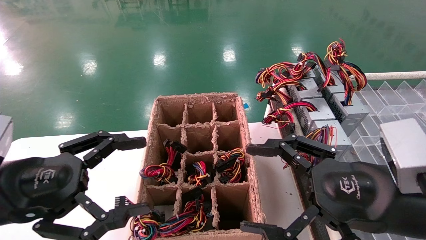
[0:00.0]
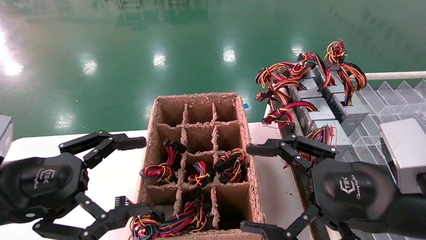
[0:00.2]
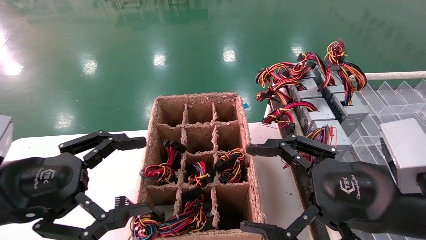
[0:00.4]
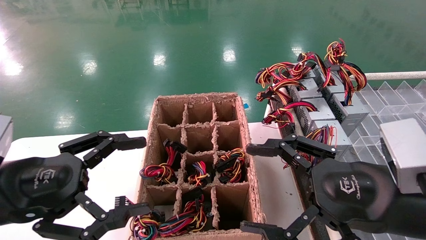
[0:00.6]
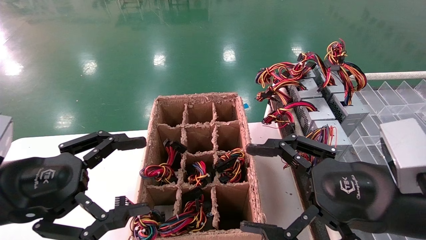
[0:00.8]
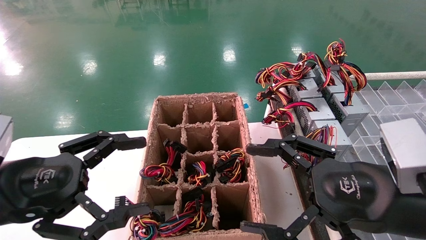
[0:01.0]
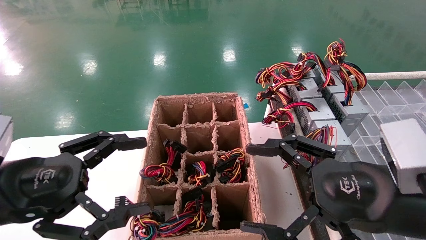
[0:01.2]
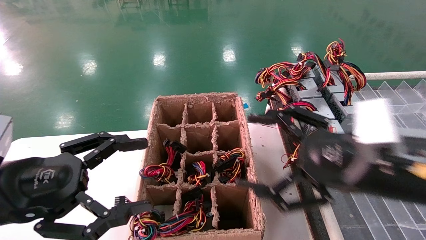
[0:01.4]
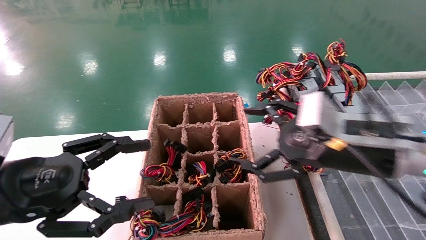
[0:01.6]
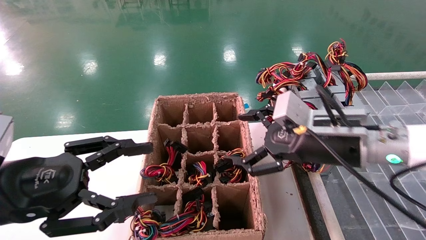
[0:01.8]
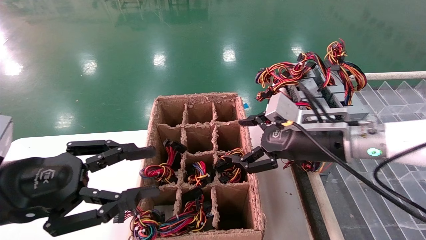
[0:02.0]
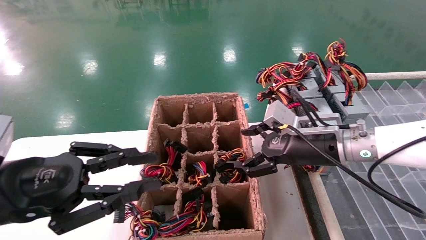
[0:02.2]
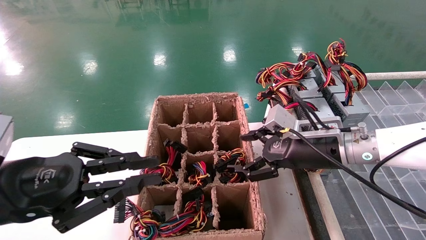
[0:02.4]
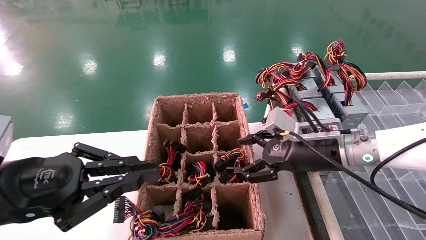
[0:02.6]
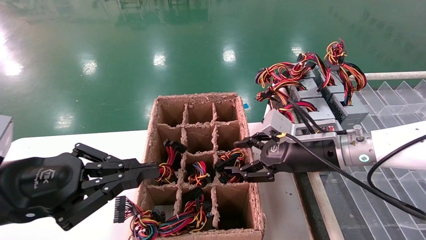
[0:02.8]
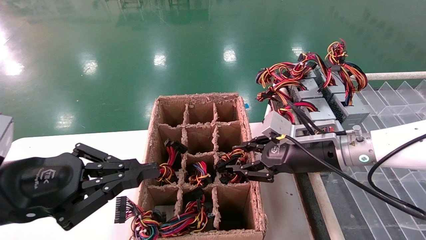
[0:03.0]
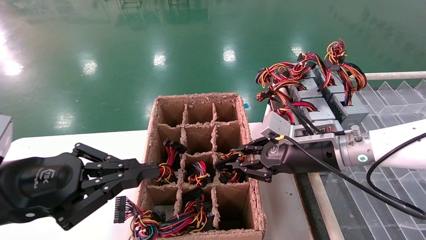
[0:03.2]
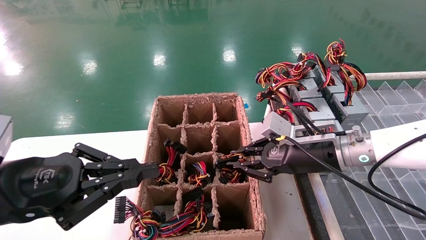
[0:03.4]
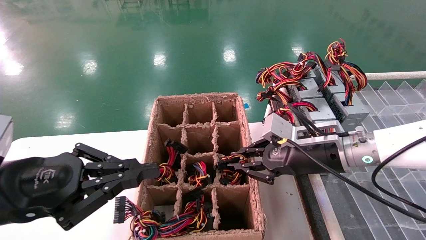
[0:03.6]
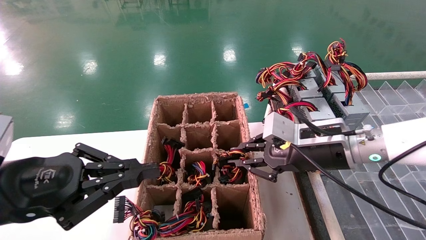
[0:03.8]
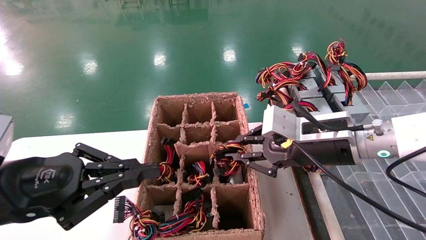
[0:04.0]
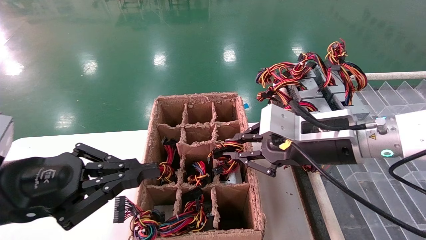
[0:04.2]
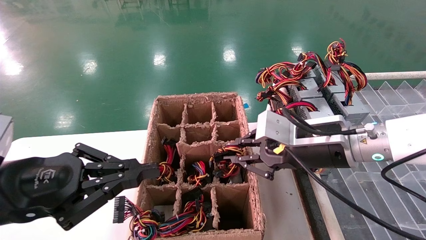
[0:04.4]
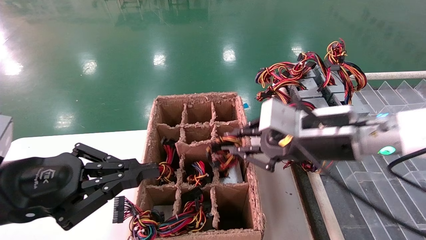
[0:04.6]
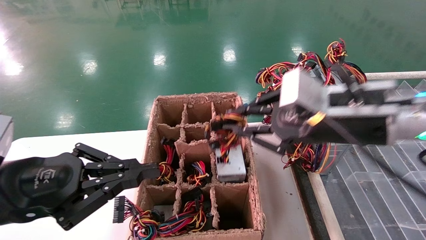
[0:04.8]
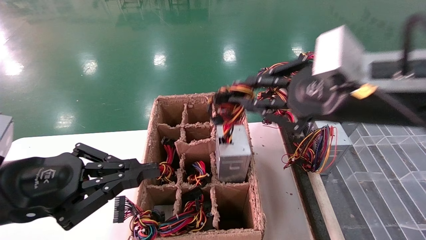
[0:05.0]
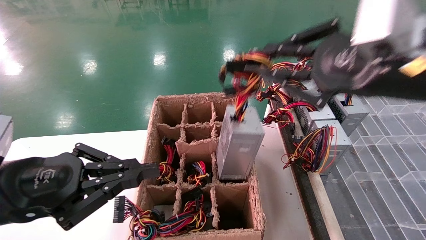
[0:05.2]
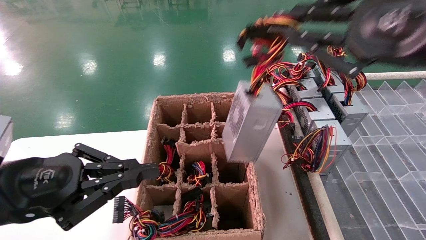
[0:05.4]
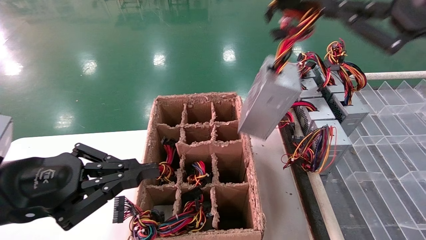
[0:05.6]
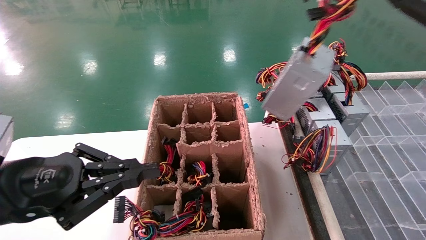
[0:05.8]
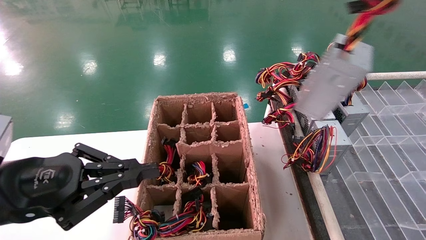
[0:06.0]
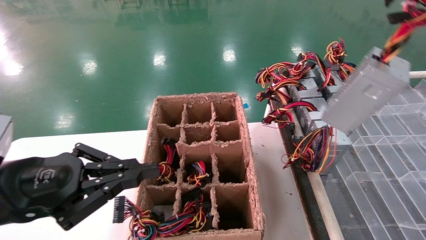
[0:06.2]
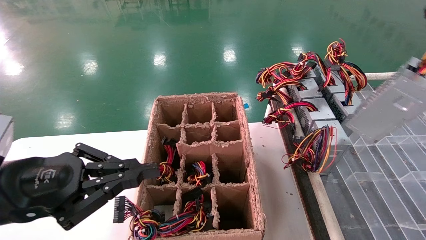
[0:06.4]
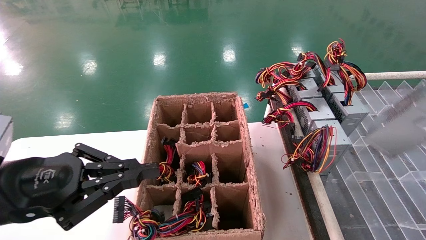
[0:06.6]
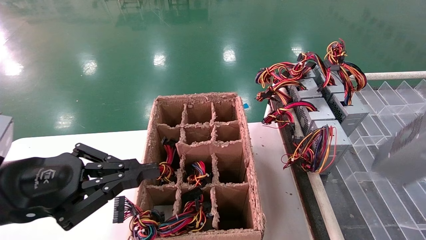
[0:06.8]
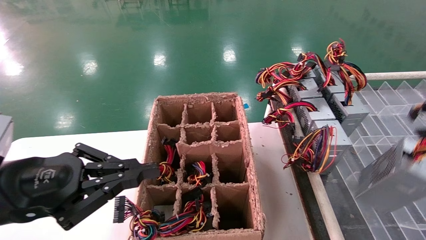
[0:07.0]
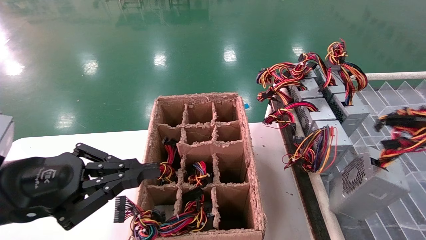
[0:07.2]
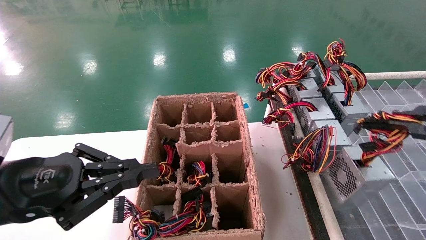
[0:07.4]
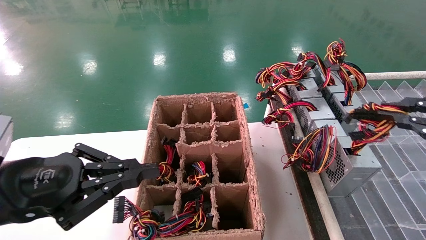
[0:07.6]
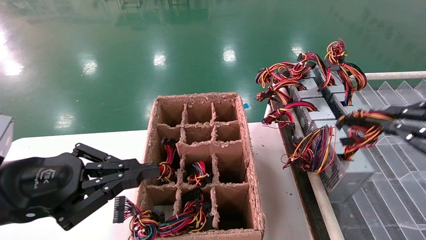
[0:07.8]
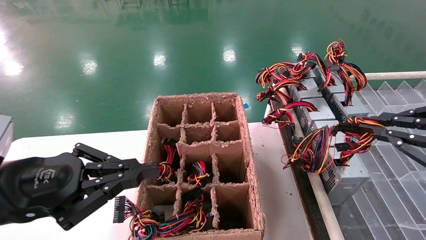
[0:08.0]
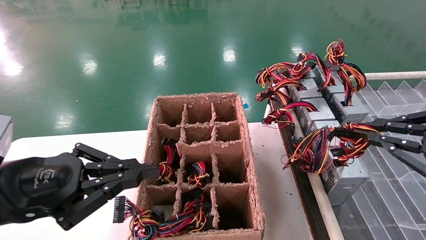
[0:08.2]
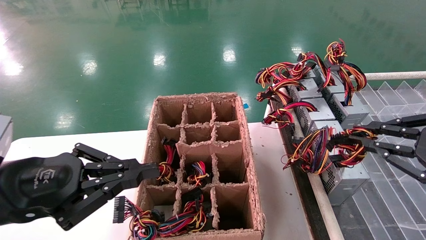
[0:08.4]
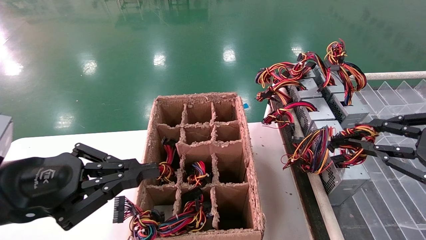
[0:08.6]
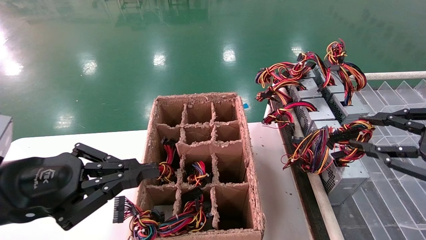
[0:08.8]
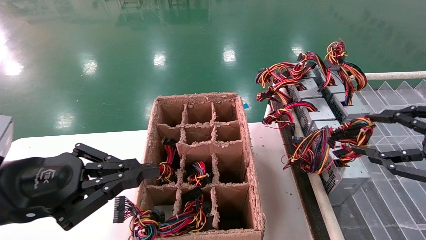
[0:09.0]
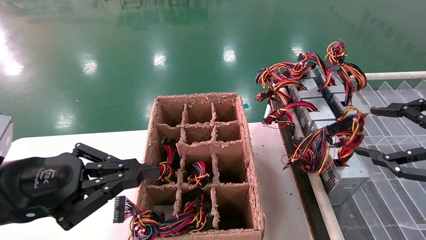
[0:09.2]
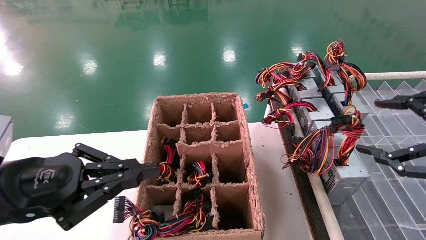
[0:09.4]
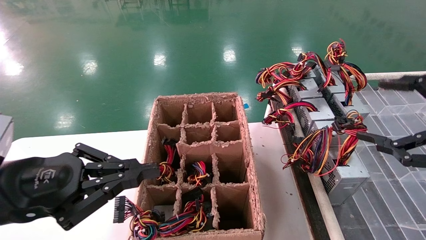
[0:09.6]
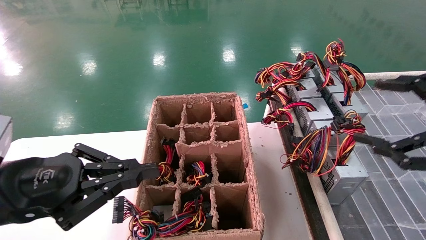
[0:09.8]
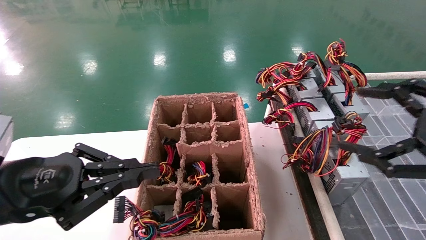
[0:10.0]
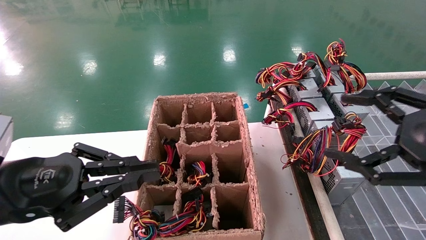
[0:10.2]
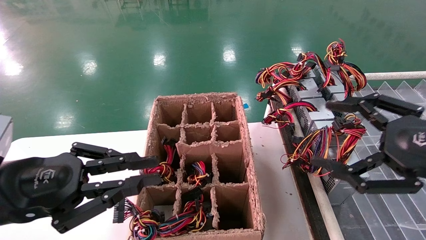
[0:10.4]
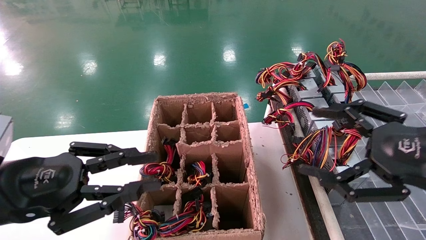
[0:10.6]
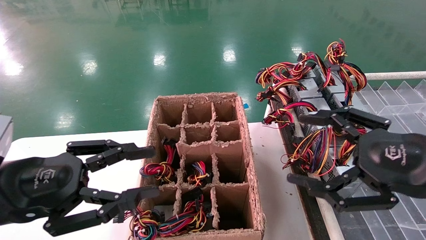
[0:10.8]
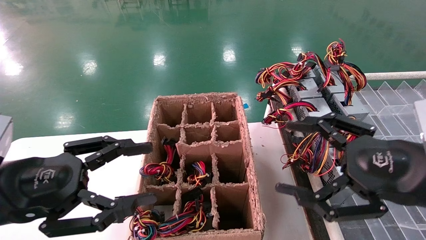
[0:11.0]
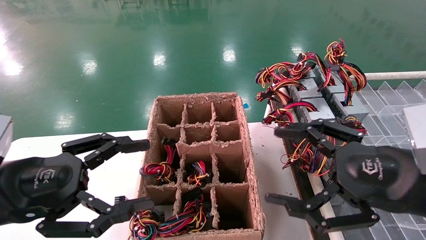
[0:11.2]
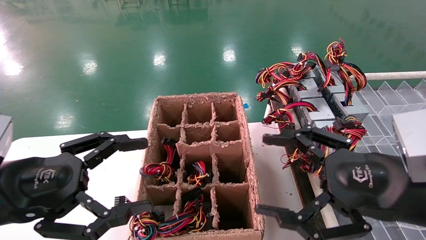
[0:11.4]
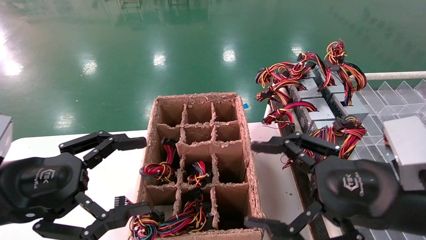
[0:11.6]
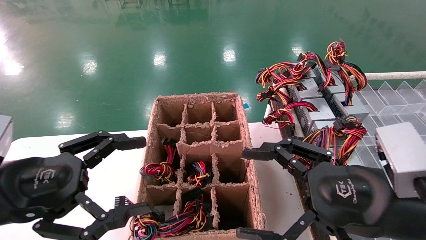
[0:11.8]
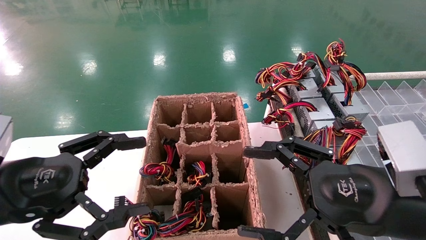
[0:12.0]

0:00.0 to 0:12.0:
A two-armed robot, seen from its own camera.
Step, 0:01.6 to 0:03.4: Grab the main unit power supply from the containment box.
Step, 0:03.6 to 0:09.0: Place the main unit power supply in the designated area.
0:00.0 to 0:01.6: The right gripper is displaced forward by roughly 10 cm.
0:01.6 to 0:03.0: The left gripper closes; the right gripper shifts some 10 cm forward, and closes.
0:03.0 to 0:04.4: The right gripper moves backward, roughly 5 cm, and closes its fingers.
0:04.4 to 0:06.0: The right gripper is displaced backward, upward and to the right by about 30 cm.
0:06.0 to 0:07.6: The right gripper is displaced downward by some 10 cm.
0:07.6 to 0:09.0: The right gripper opens.
0:09.0 to 0:10.4: The right gripper moves to the left, roughly 5 cm, and opens.
0:10.4 to 0:12.0: The left gripper opens. Meanwhile the right gripper goes about 10 cm to the left.

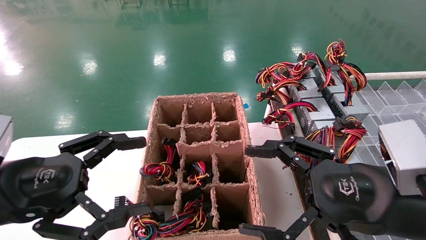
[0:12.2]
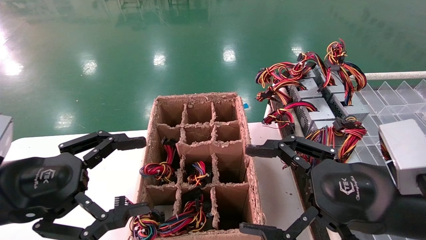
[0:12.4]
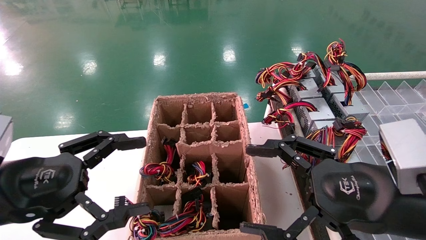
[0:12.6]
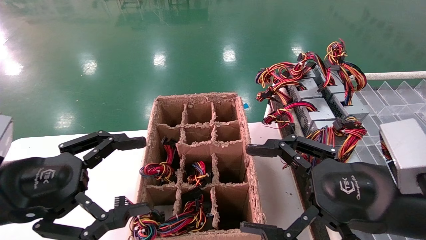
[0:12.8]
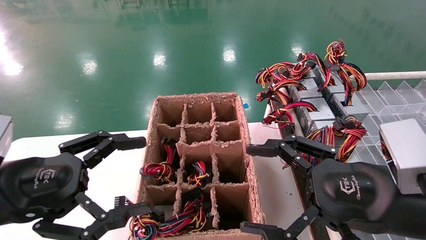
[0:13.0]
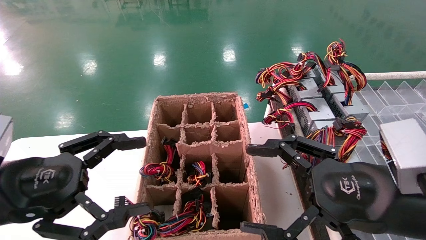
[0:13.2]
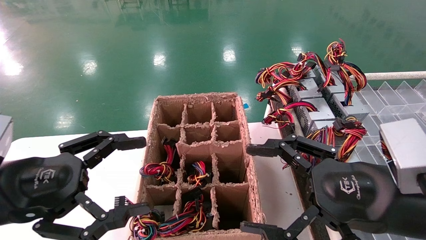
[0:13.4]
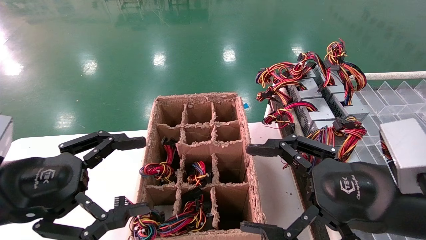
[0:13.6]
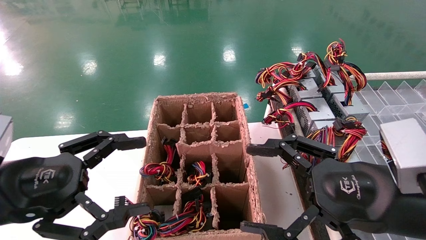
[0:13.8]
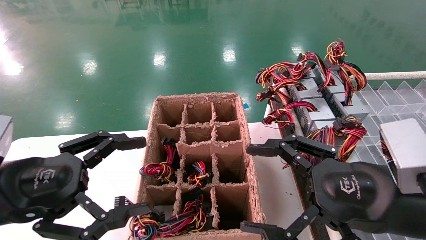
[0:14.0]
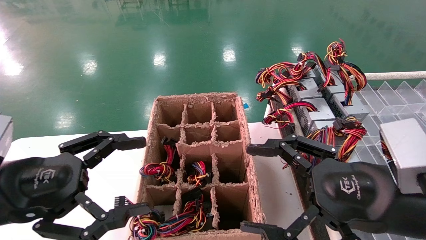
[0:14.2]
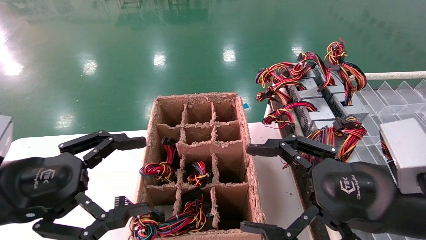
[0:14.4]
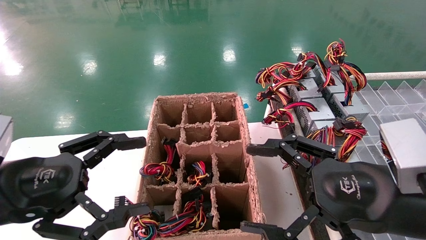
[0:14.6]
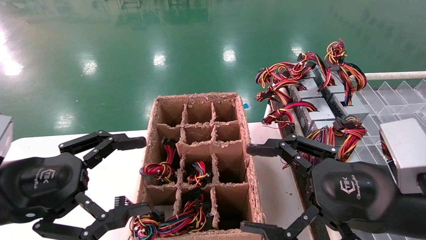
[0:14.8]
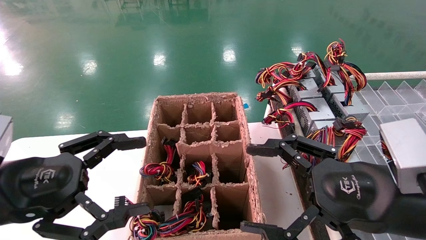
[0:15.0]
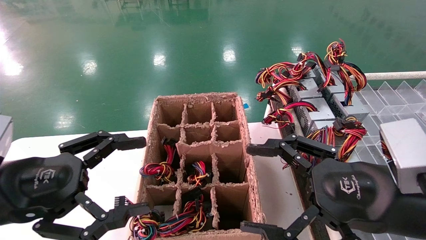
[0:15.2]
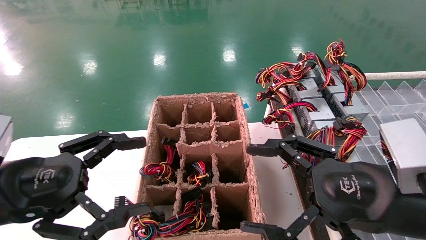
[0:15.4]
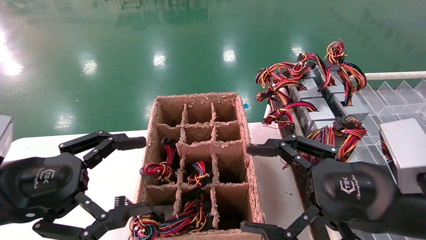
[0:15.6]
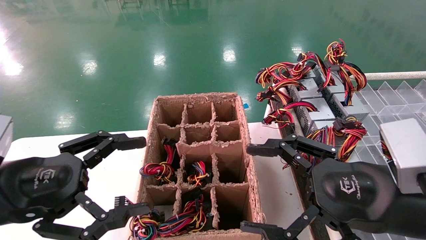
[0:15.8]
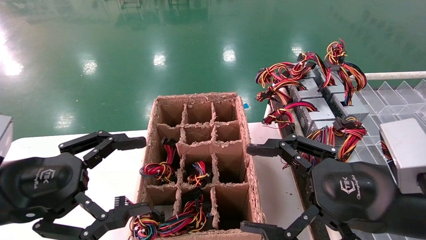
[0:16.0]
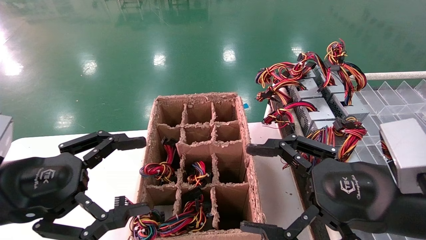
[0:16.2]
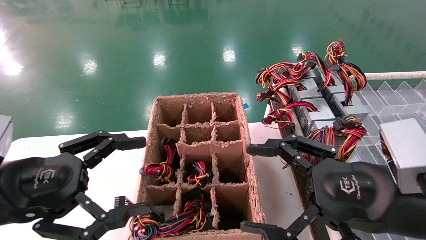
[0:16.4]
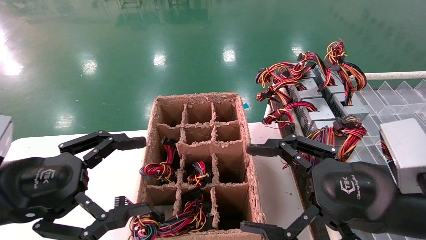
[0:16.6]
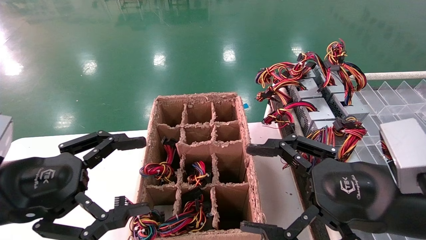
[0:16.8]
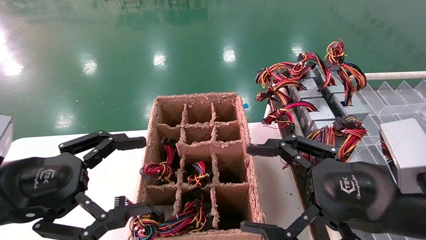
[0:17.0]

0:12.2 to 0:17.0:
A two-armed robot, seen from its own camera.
0:12.2 to 0:17.0: The two grippers keep their place.
